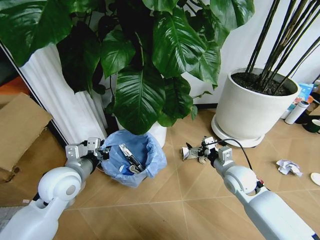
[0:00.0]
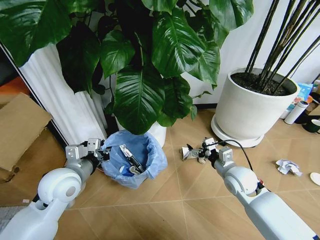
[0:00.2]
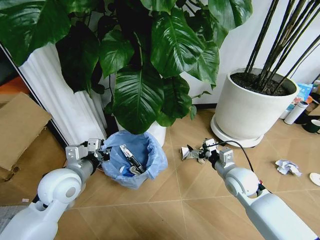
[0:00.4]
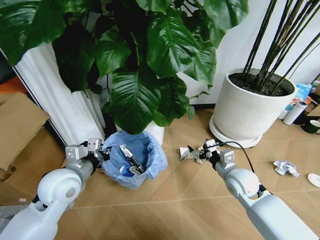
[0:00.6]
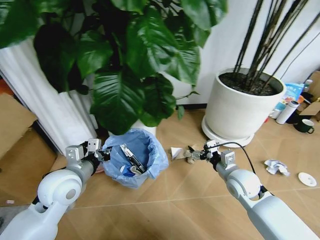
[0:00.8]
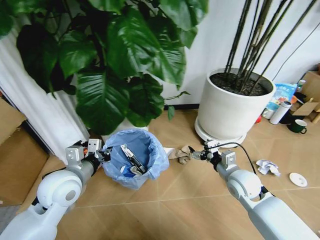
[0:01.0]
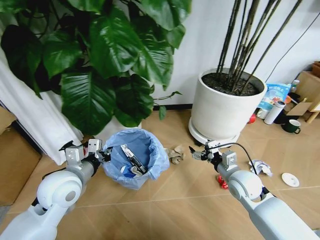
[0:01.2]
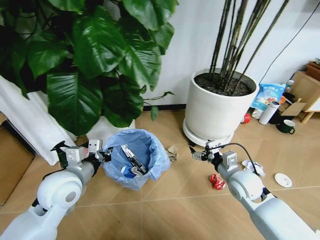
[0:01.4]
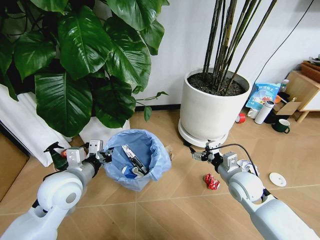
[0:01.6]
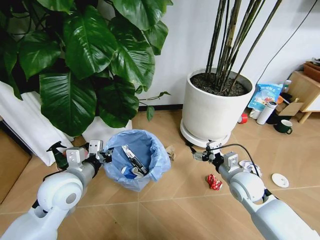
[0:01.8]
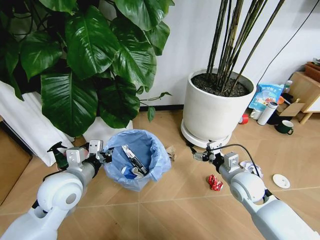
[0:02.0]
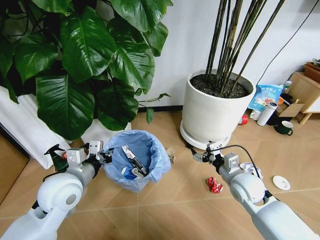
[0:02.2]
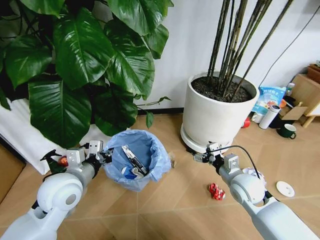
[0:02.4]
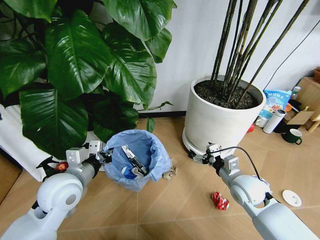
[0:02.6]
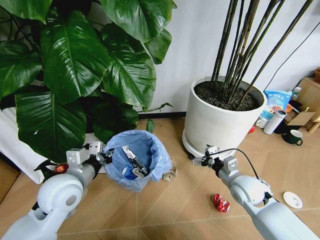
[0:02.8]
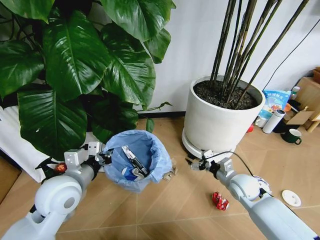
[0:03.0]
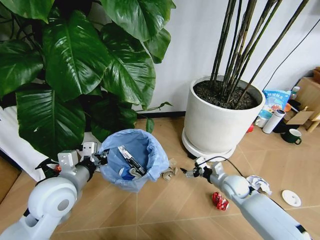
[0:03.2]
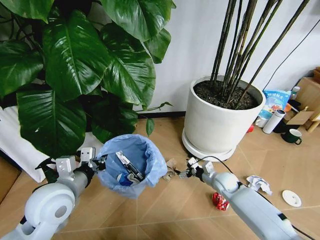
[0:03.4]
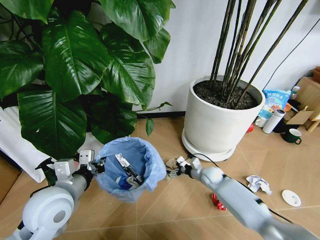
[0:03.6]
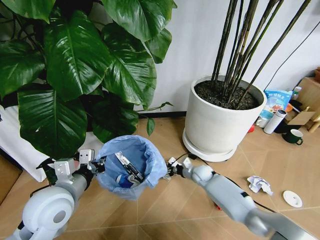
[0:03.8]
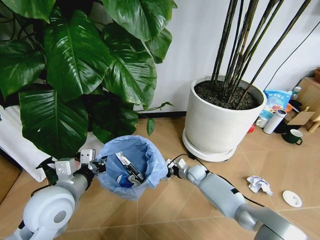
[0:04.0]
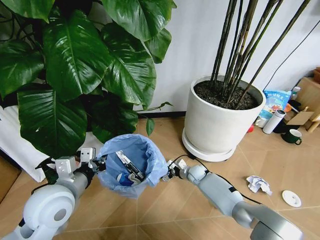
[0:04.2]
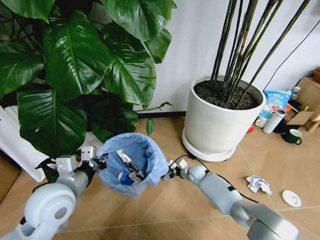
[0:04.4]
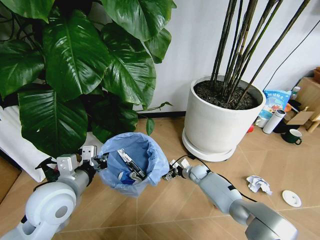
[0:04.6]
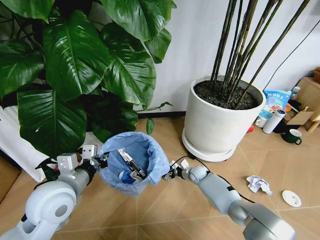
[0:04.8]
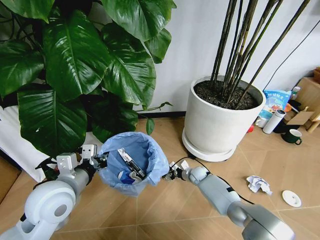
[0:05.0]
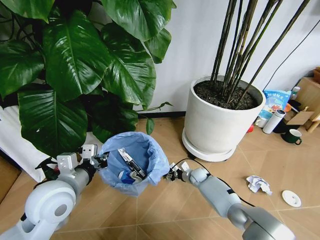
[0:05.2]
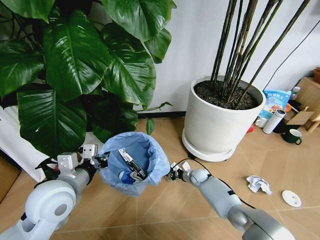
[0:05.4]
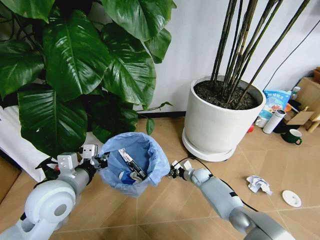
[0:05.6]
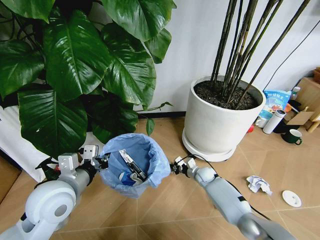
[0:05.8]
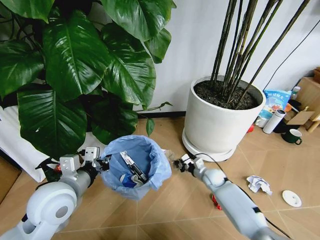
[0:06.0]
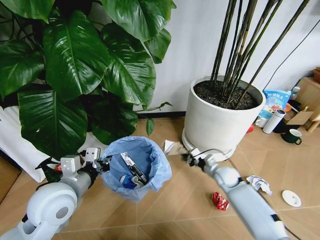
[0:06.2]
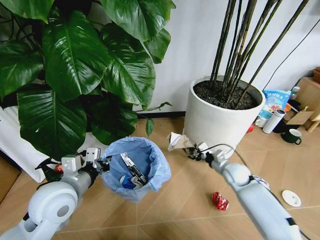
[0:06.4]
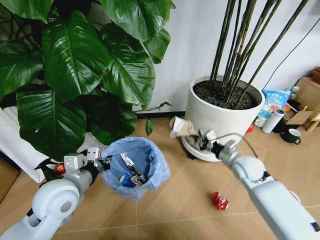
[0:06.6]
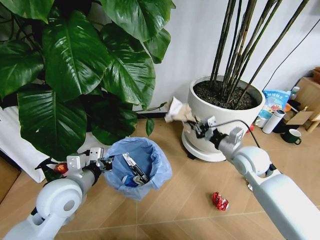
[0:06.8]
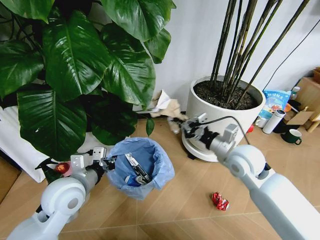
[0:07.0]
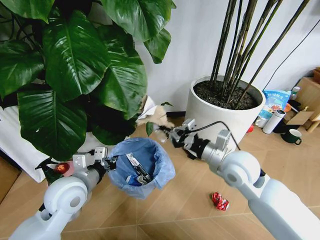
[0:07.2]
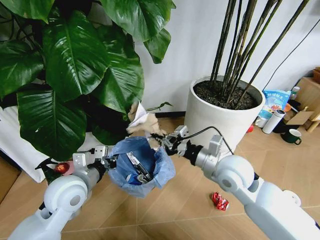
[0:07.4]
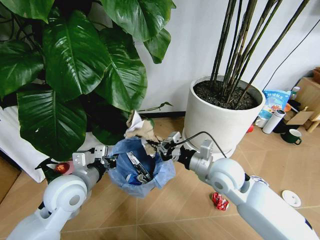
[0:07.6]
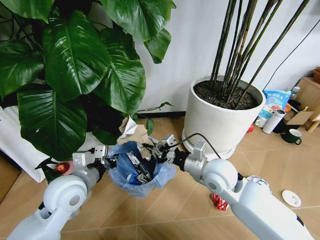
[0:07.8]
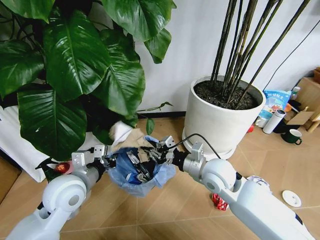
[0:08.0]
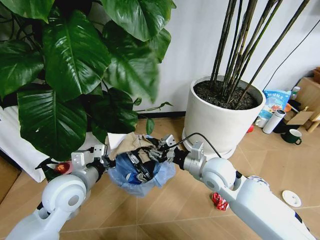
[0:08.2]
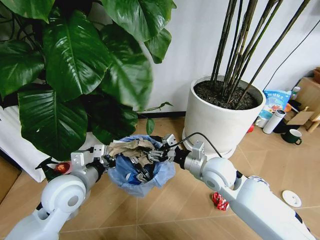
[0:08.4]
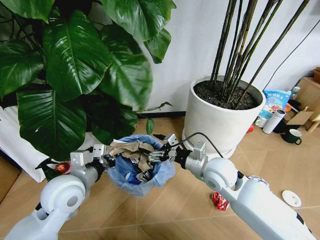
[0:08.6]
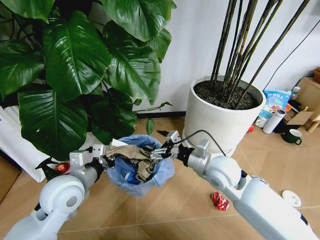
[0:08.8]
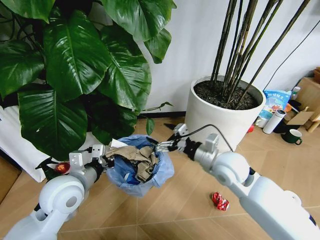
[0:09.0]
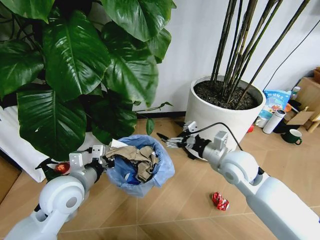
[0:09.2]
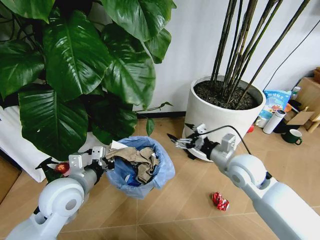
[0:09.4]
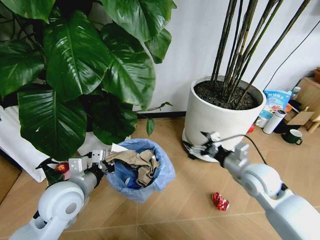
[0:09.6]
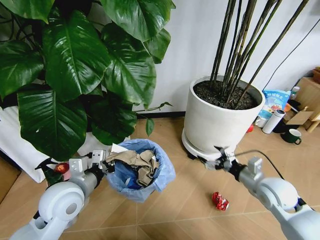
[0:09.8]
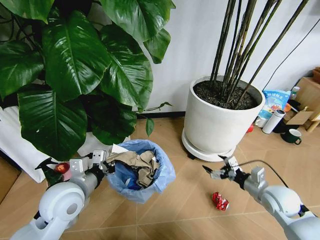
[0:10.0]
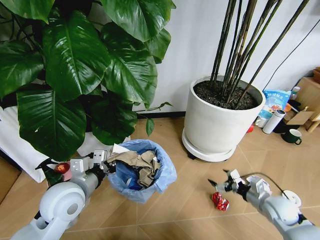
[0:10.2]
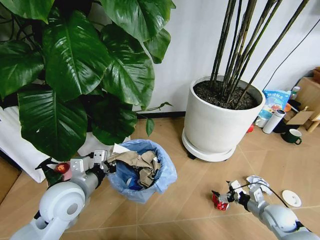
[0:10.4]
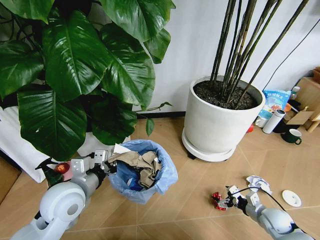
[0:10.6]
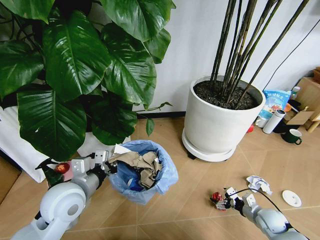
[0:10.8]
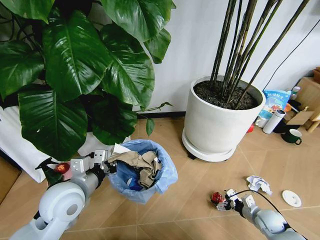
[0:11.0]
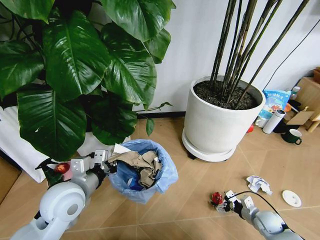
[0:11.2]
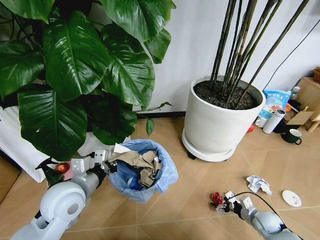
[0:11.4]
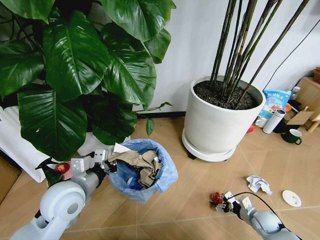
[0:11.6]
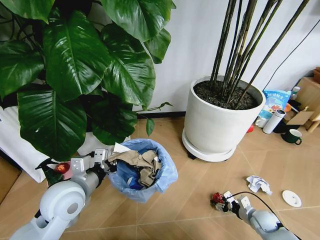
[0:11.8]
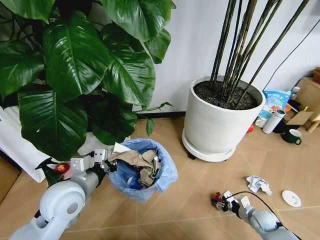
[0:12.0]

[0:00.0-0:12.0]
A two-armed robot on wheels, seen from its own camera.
Task of the whole recording: Pick up the trash bin and place the garbage on the floor into it.
0:01.6 to 0:03.0: The right gripper travels downward by about 5 cm.
0:03.0 to 0:04.4: The right gripper is displaced downward, forward and to the left by approximately 25 cm.
0:04.4 to 0:06.0: The right gripper heads to the right, covering approximately 5 cm, and closes.
0:06.0 to 0:07.6: The right gripper shifts some 25 cm upward and backward.
0:07.6 to 0:09.0: The right gripper opens.
0:09.0 to 0:10.4: The right gripper is displaced downward and to the right by some 30 cm.
0:10.4 to 0:12.0: The right gripper is displaced downward by roughly 10 cm, and closes.

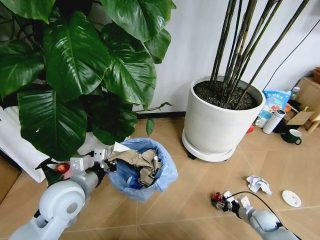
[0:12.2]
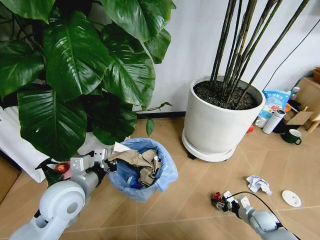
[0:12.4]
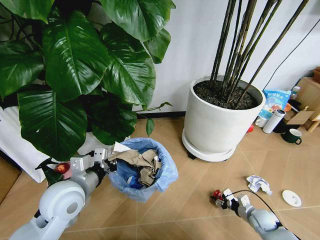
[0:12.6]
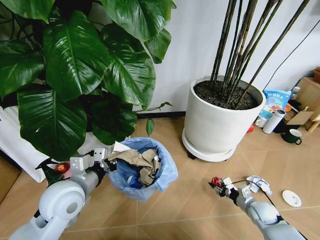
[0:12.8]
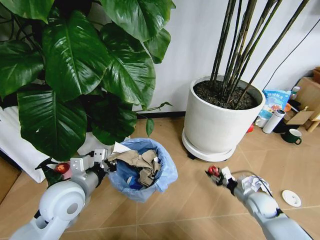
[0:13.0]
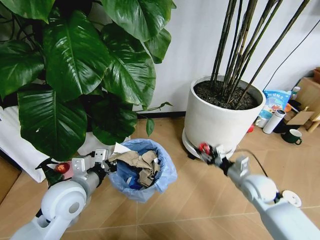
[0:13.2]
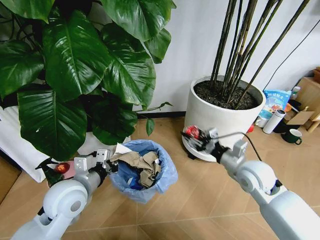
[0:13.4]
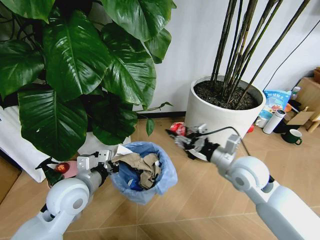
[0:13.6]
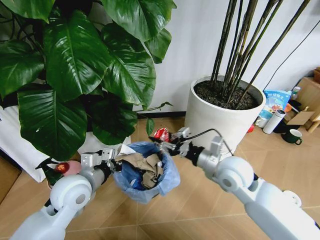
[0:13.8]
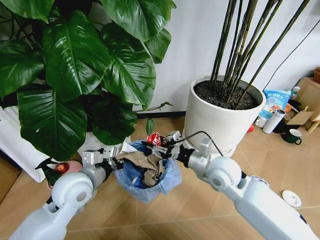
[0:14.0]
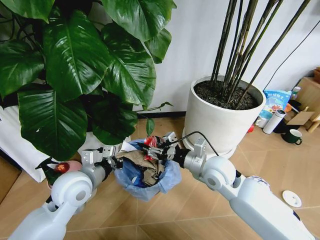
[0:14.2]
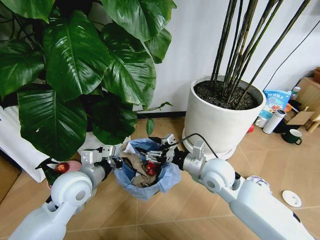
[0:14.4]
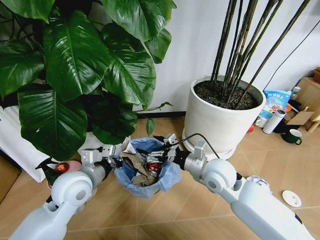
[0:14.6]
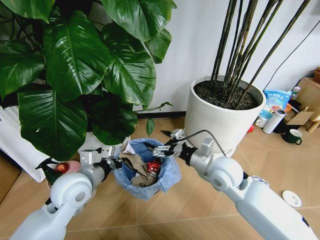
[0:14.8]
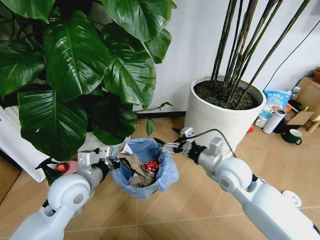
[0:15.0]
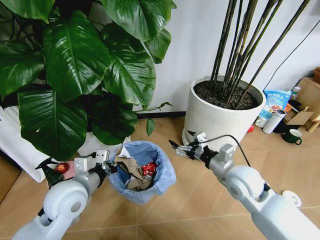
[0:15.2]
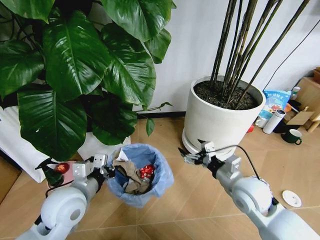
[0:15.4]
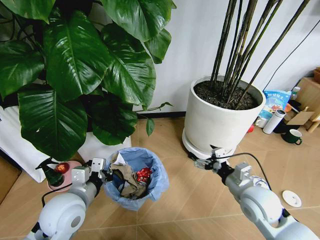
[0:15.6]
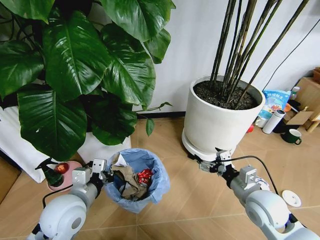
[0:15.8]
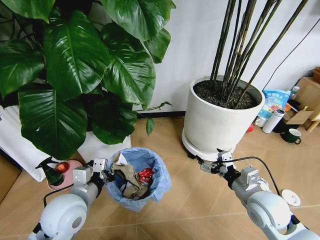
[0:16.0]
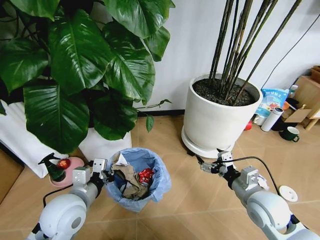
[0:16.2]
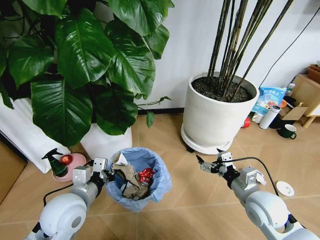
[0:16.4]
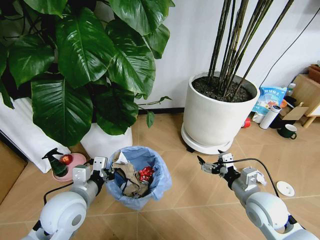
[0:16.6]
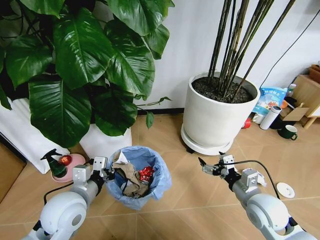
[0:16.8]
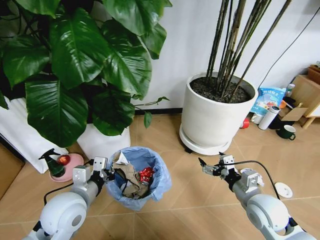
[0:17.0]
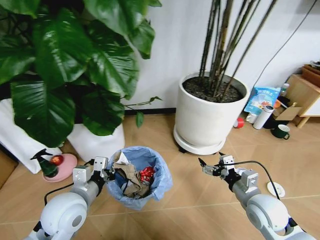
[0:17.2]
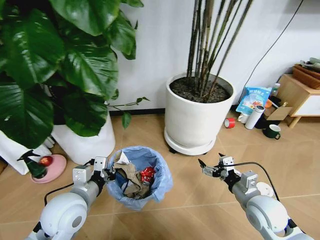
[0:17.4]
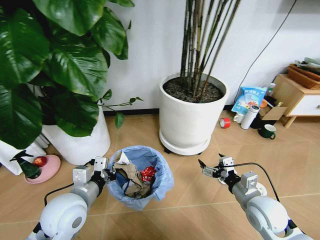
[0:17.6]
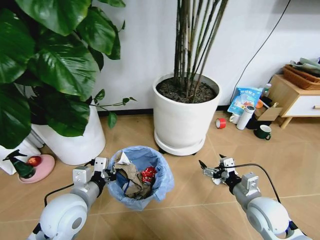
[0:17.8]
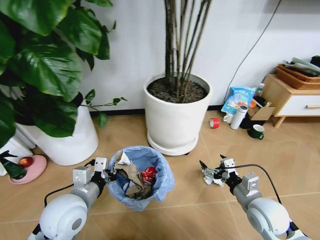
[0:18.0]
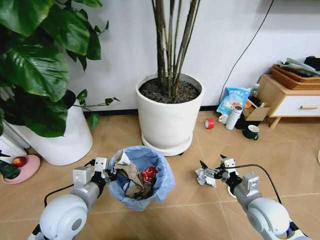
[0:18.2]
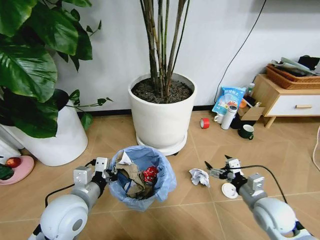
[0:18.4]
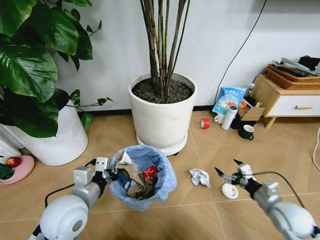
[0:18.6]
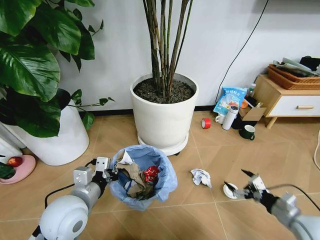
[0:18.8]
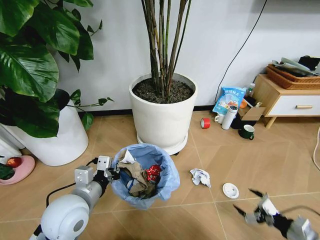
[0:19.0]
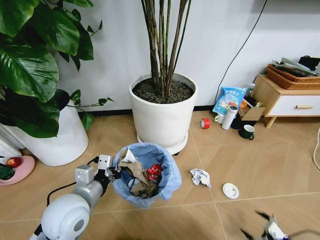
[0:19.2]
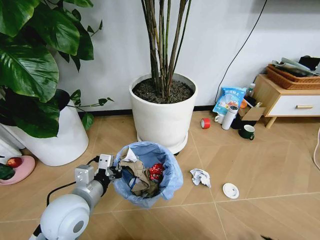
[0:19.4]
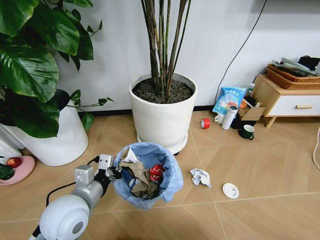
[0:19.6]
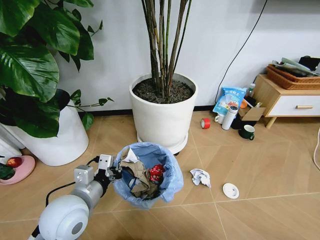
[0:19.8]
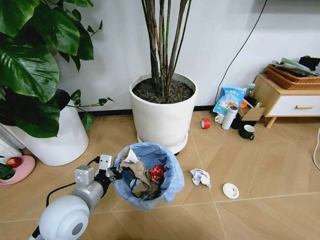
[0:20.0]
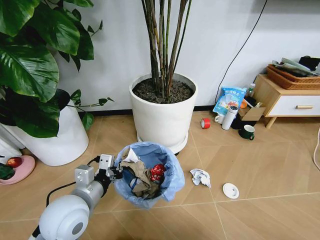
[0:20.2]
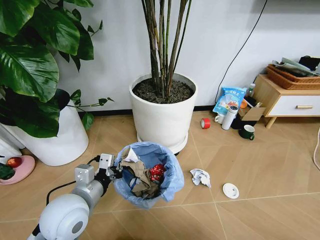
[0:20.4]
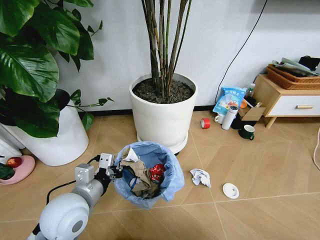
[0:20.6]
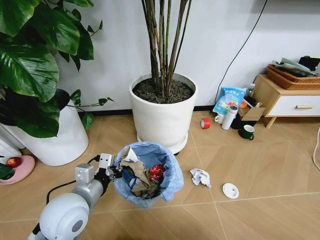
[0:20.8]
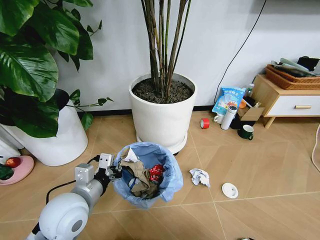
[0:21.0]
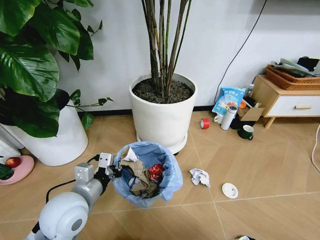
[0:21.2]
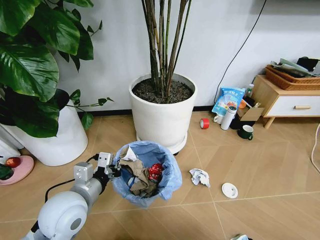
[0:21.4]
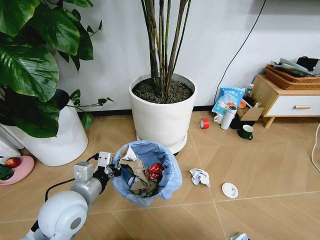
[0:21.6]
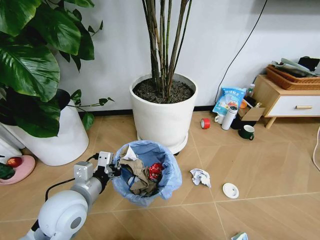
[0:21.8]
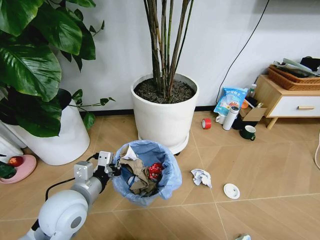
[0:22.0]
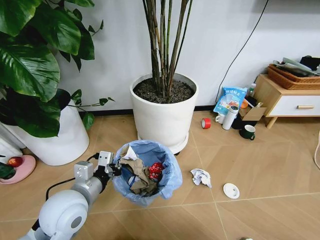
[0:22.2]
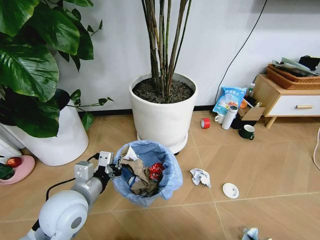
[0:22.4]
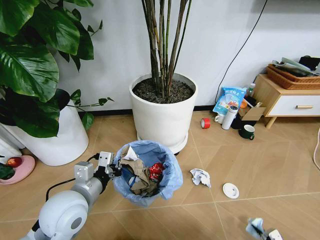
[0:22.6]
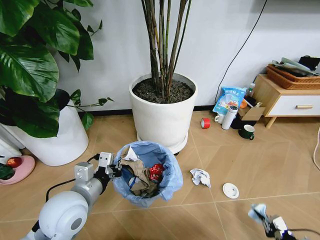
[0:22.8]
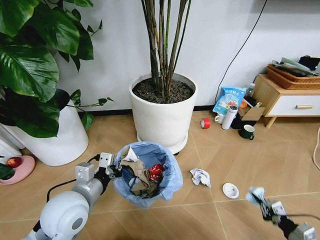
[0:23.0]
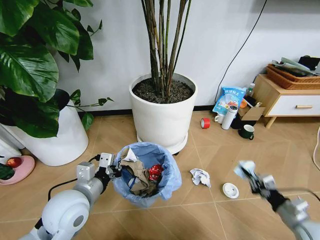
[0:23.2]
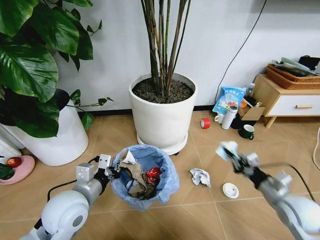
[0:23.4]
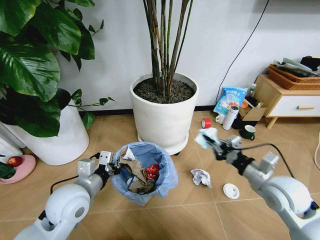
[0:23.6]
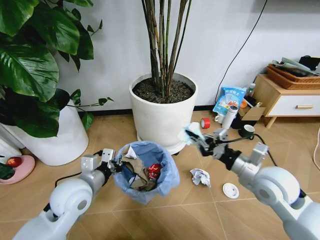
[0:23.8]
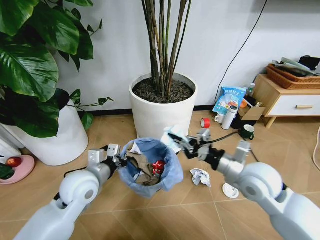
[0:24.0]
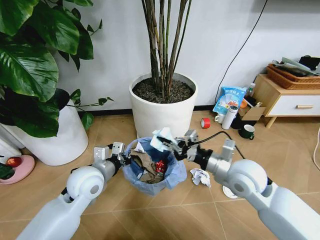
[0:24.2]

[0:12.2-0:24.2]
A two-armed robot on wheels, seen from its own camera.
Task of the whole recording: Pick up the trash bin and place the garbage on the floor into it.
0:12.2 to 0:13.8: The right gripper goes about 40 cm upward and to the left.
0:13.8 to 0:15.2: The right gripper opens its fingers.
0:15.2 to 0:16.6: The right gripper is displaced backward and to the right by some 10 cm.
0:18.2 to 0:19.8: The right gripper is displaced backward, to the right and downward by about 35 cm.
0:19.8 to 0:21.2: The right gripper moves downward, some 5 cm.
0:21.2 to 0:22.6: The right gripper moves upward, some 5 cm, and closes its fingers.
0:22.6 to 0:24.2: The right gripper is displaced upward, to the left and forward by some 50 cm; the left gripper goes about 10 cm forward.
